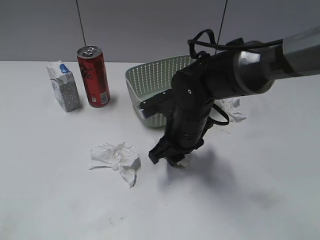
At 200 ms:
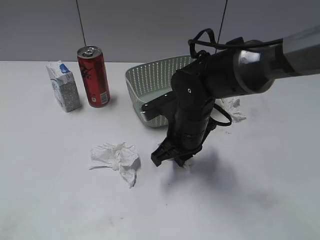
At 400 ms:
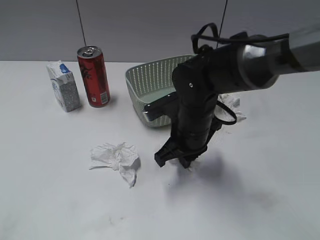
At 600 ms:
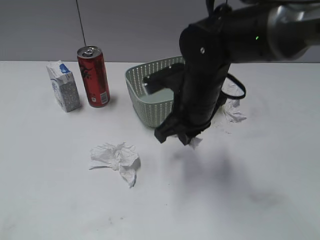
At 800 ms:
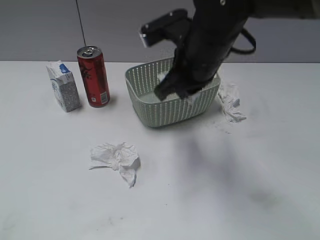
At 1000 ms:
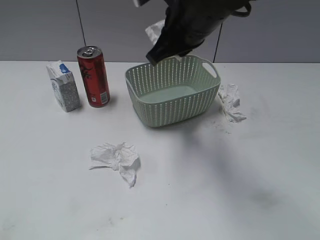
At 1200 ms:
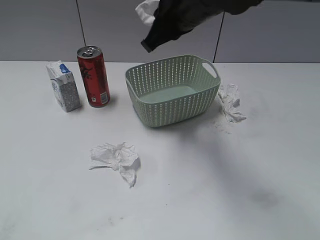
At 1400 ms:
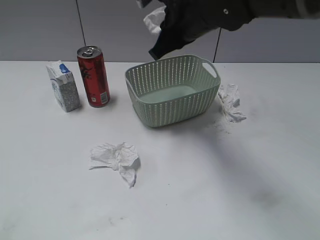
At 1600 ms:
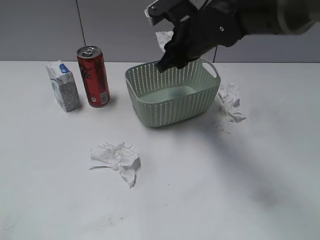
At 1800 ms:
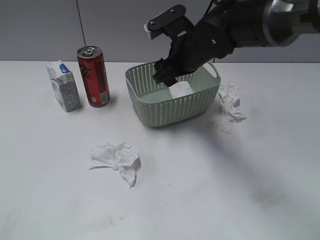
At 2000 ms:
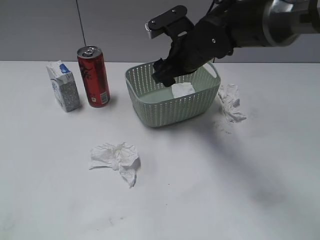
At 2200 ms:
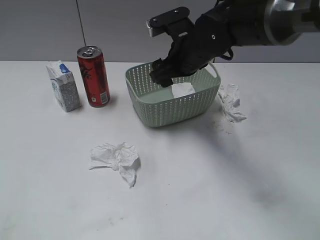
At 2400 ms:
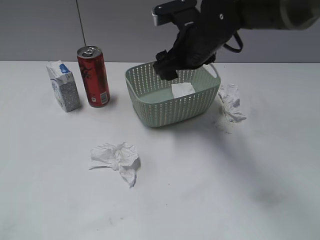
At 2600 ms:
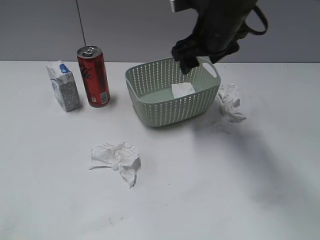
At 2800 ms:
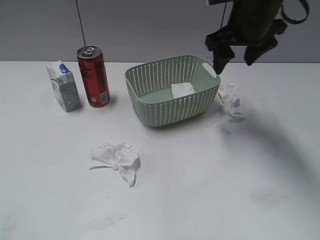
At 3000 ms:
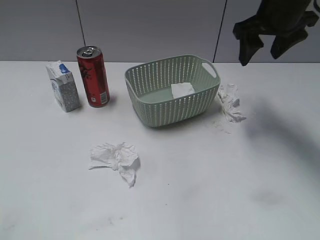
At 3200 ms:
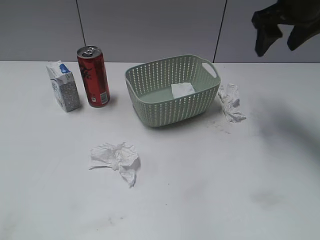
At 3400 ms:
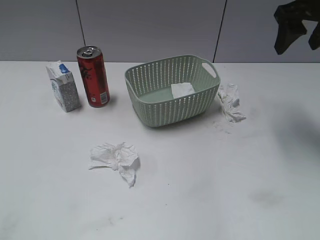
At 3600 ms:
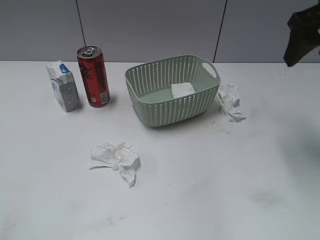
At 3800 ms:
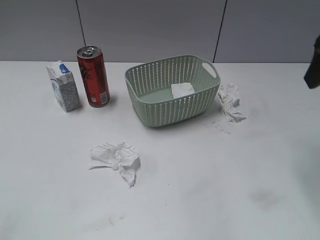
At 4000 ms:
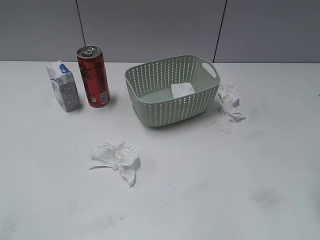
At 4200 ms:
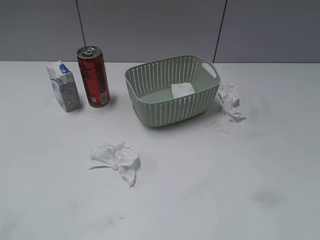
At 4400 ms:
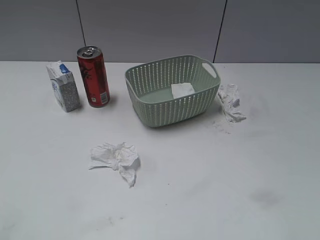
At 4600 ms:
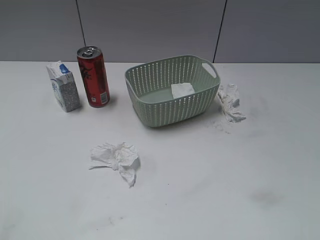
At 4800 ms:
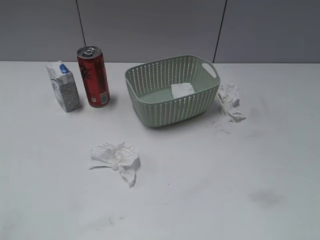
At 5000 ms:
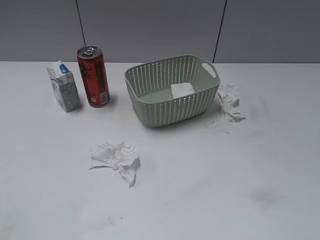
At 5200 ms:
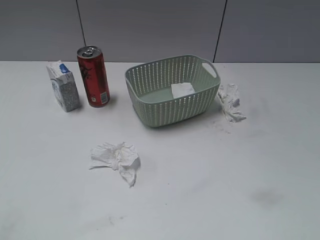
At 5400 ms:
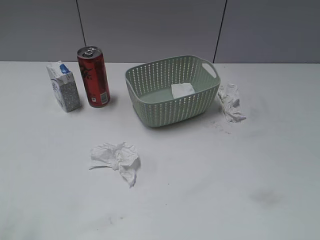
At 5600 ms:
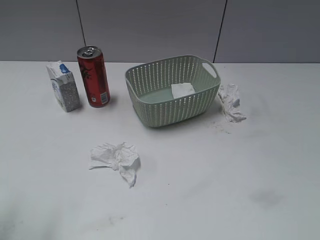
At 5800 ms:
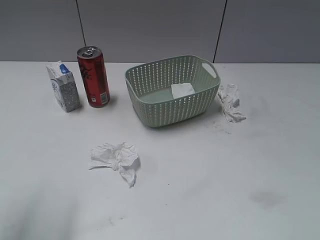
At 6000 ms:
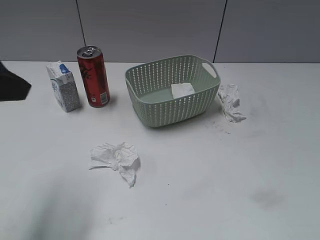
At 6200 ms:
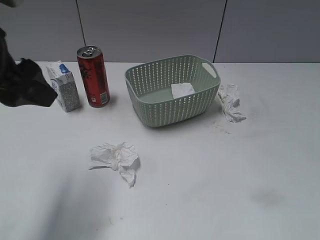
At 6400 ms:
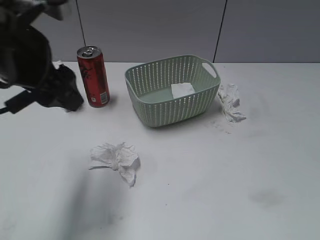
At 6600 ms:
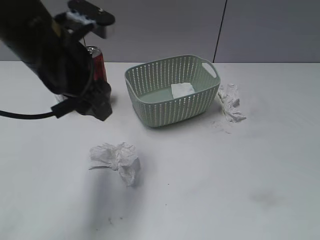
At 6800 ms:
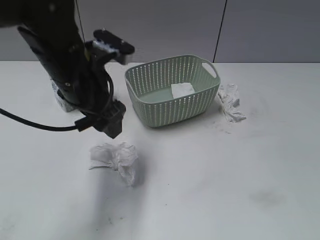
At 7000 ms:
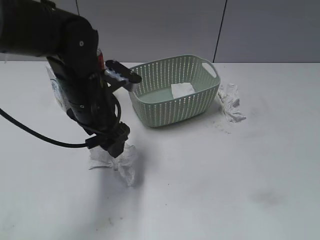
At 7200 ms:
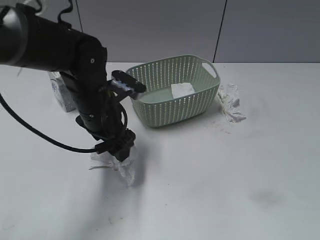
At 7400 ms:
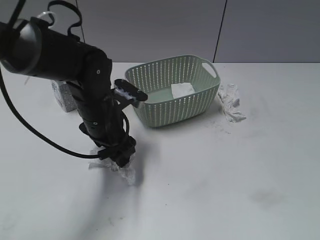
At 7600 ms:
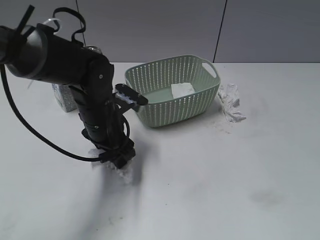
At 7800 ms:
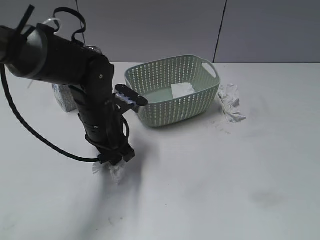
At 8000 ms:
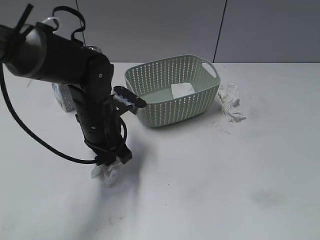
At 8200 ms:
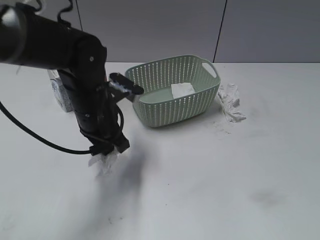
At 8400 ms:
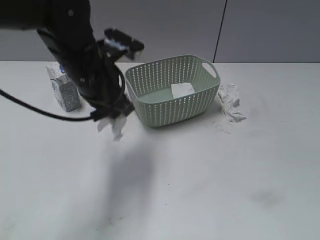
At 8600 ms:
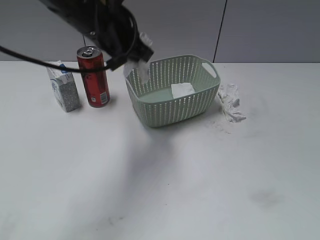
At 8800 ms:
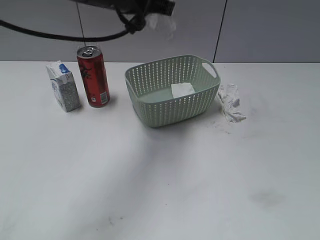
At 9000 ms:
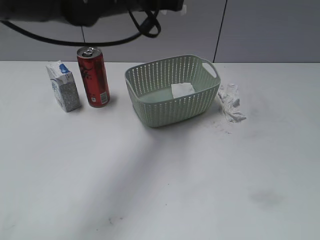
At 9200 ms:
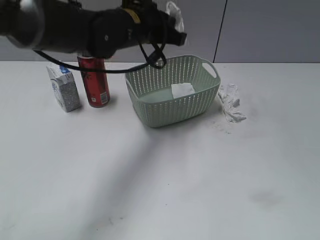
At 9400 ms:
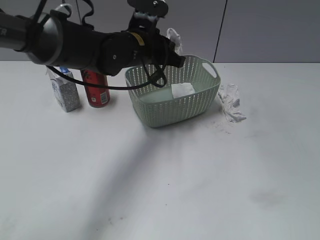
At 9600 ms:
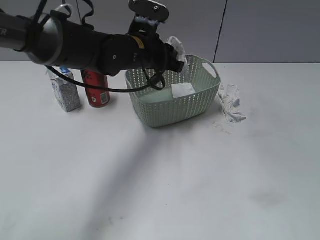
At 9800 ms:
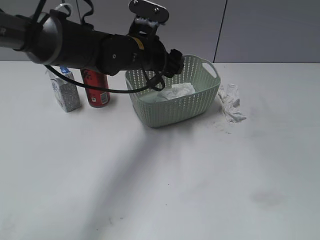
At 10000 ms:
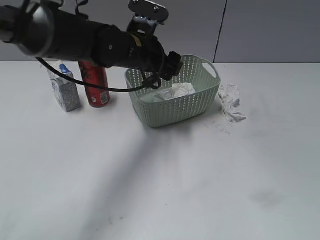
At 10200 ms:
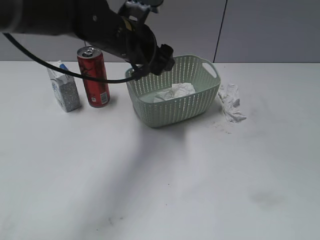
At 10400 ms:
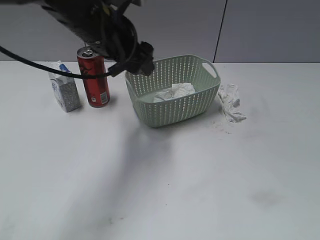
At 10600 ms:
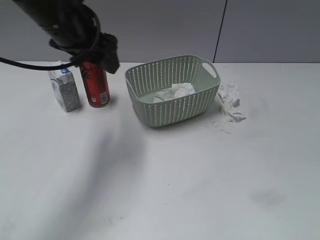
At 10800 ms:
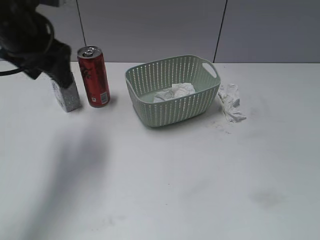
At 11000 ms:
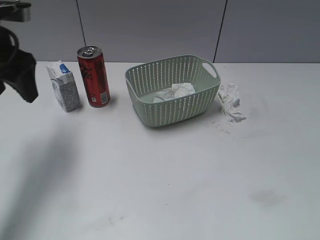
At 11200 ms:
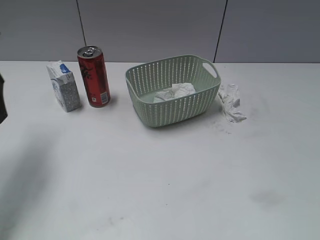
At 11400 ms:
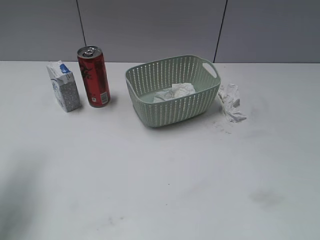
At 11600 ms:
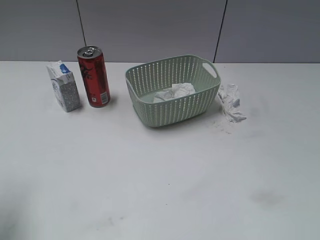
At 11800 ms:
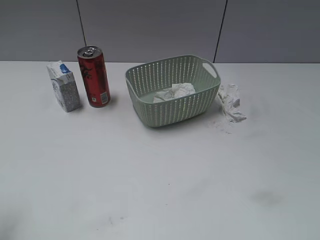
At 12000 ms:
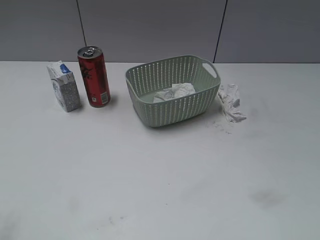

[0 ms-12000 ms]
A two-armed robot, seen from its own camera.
Step, 600 ms to 2000 ms: Place the waste paper in the basket with right gripper.
Step, 2200 ms to 8200 ms: Grasp the waste paper with left gripper.
Step, 8400 ms to 10000 ms: Place the waste paper in the basket with left gripper.
0 ms to 1600 ms: The right gripper moves upward and forward, roughly 15 cm, and closes its fingers.
1600 ms to 3000 ms: The right gripper goes roughly 10 cm to the right and upward, and opens its fingers.
3000 ms to 4400 ms: The right gripper shifts some 30 cm backward and to the right.
4400 ms to 6000 ms: The left gripper heads forward and to the right, covering some 20 cm.
6000 ms to 7600 ms: The left gripper goes roughly 30 cm downward, to the right and forward.
7600 ms to 9000 ms: The left gripper goes about 20 cm upward, and closes its fingers.
9000 ms to 10400 ms: The left gripper opens up.
10400 ms to 12000 ms: The left gripper shifts roughly 35 cm backward and to the left.

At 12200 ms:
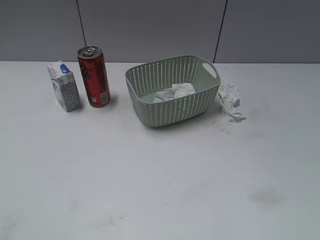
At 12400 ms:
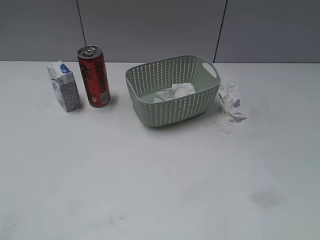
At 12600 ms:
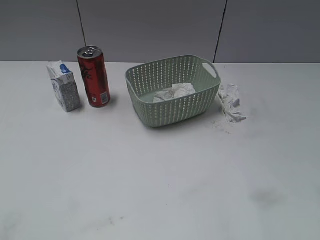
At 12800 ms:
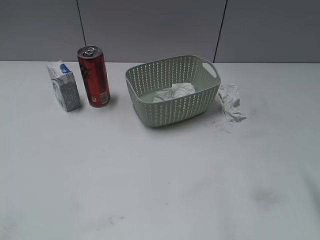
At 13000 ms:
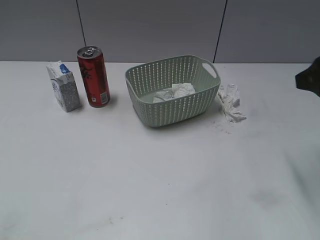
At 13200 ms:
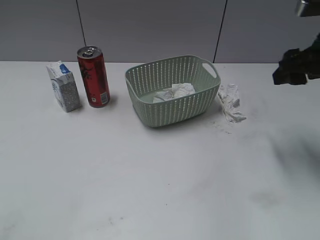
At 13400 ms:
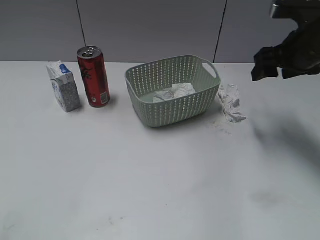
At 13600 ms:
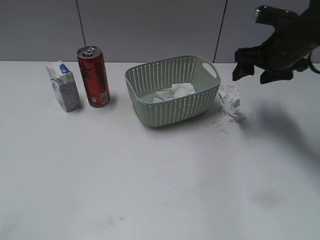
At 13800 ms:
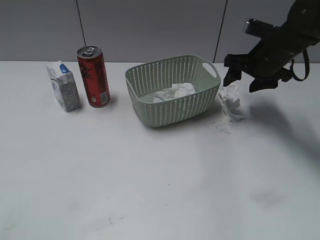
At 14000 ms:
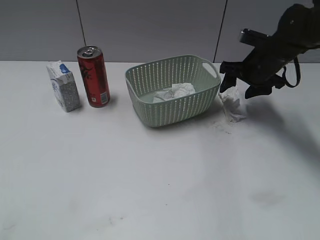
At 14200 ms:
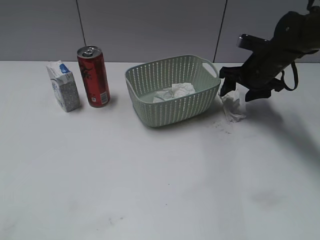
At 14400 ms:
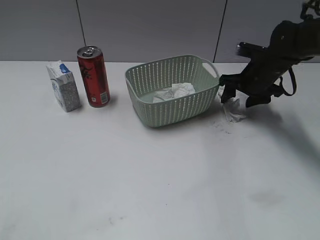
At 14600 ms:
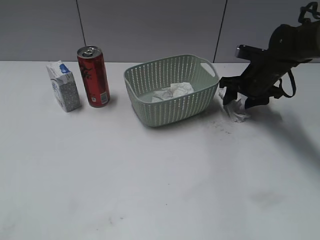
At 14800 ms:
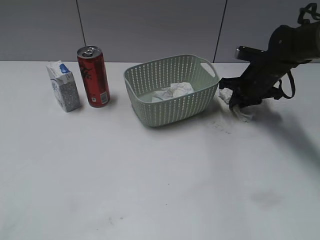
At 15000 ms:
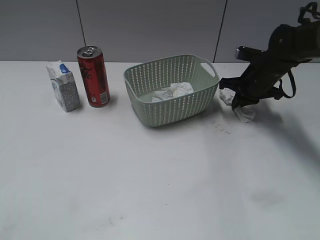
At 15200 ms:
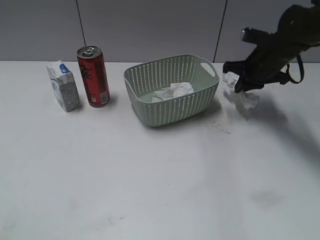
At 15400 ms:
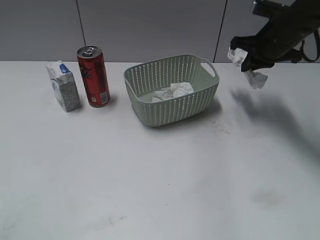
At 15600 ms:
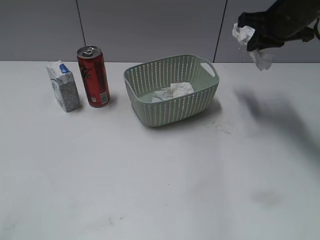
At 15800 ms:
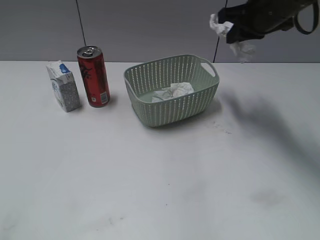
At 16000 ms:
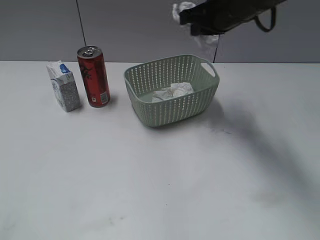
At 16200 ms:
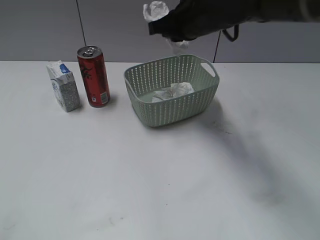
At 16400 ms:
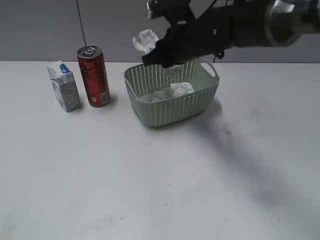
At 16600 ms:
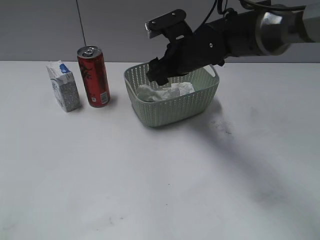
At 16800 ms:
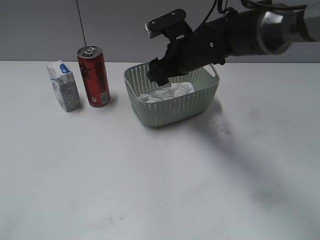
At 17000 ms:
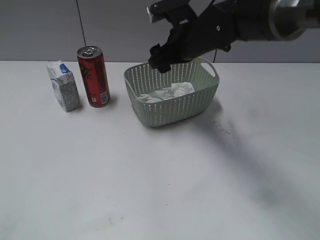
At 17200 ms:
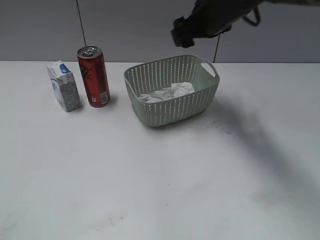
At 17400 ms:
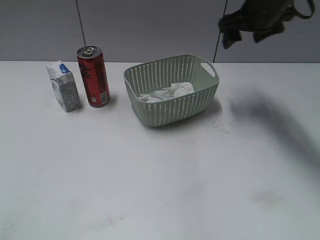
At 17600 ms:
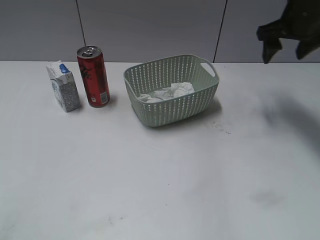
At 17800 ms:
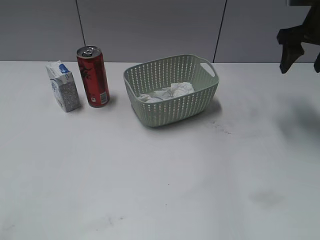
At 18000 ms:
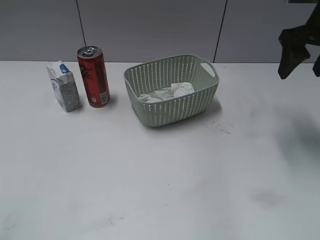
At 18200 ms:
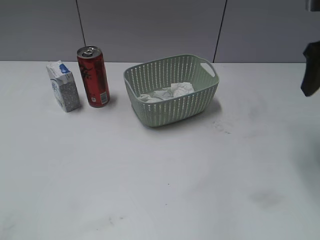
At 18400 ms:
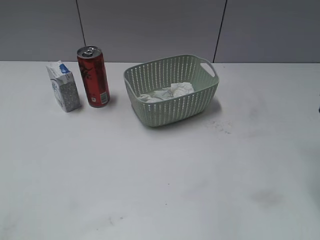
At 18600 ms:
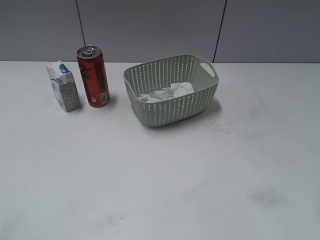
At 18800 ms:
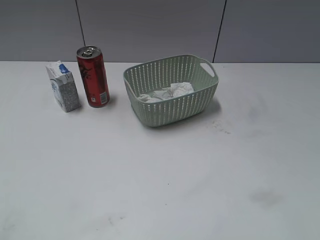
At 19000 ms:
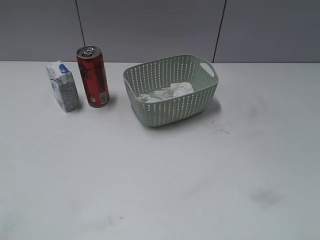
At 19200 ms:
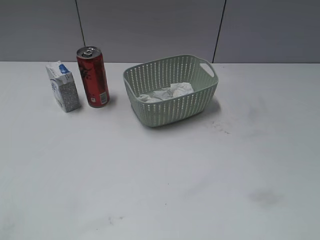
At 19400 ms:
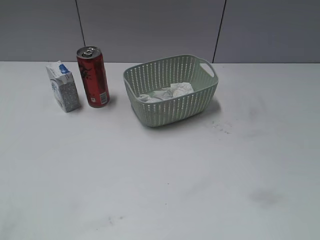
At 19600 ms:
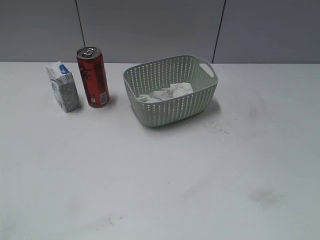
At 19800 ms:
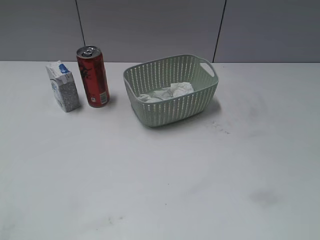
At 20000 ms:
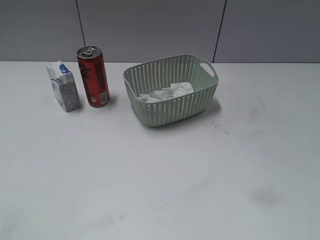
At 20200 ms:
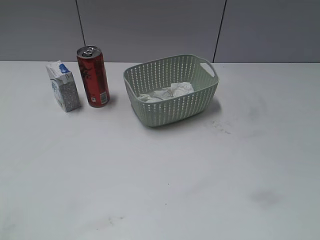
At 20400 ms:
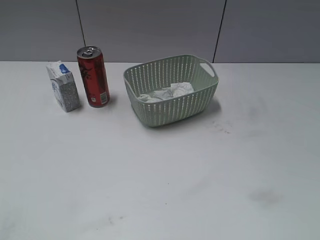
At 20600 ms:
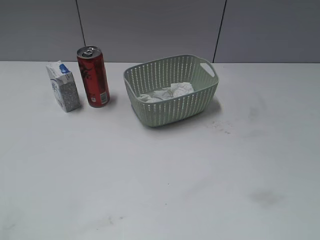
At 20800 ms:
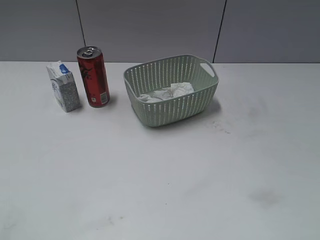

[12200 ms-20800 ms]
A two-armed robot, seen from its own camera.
Step, 12200 ms to 15200 ms: Grasp the waste paper with right gripper.
Step, 15400 ms to 16800 ms: Place the waste paper in the basket with right gripper.
12200 ms to 13600 ms: The right gripper heads forward, covering about 35 cm.
13600 ms to 15000 ms: The right gripper goes some 15 cm downward and forward, and closes up.
15000 ms to 16600 ms: The right gripper travels to the left and upward by roughly 20 cm, and opens.
16600 ms to 18000 ms: The right gripper moves to the right and upward, roughly 25 cm.
18000 ms to 19400 ms: The right gripper travels backward by some 35 cm.
